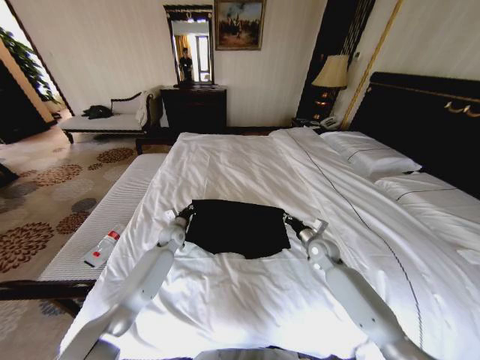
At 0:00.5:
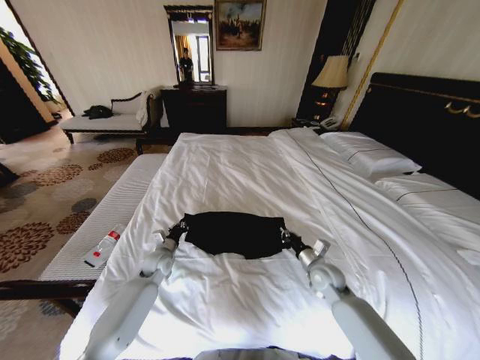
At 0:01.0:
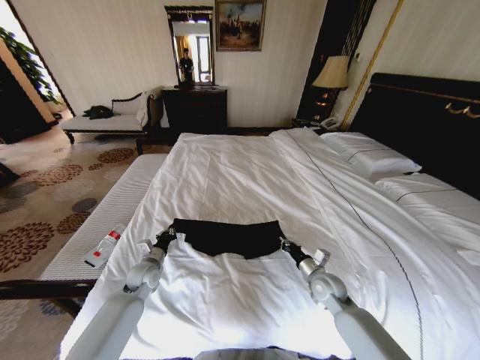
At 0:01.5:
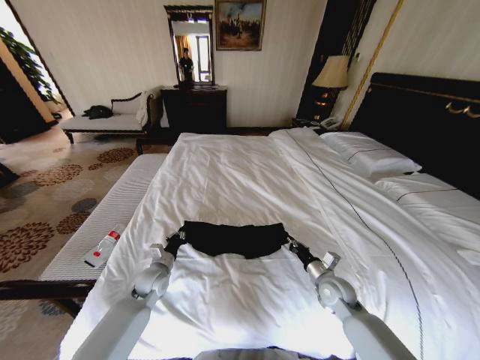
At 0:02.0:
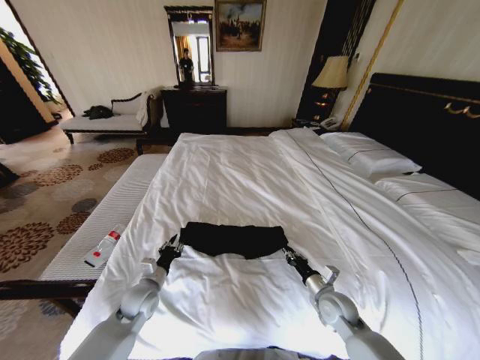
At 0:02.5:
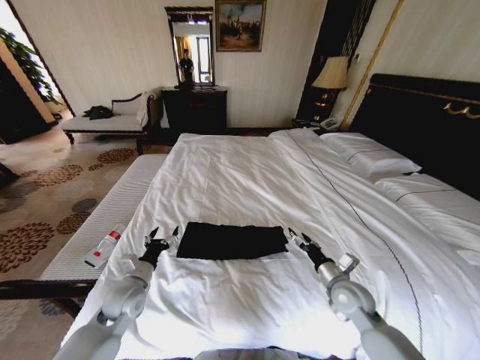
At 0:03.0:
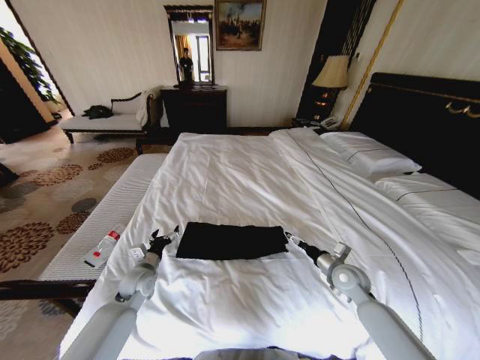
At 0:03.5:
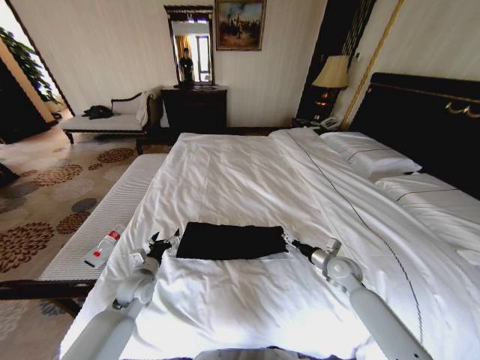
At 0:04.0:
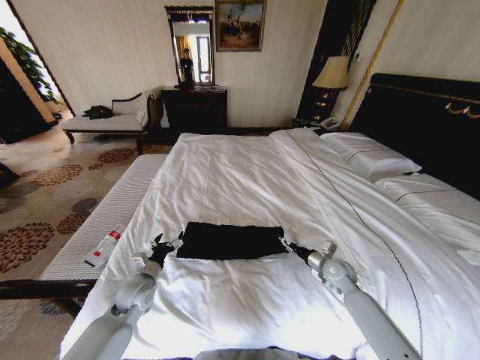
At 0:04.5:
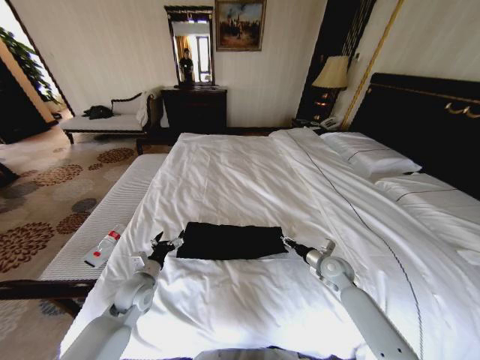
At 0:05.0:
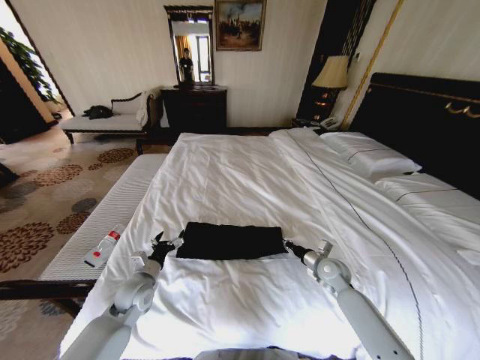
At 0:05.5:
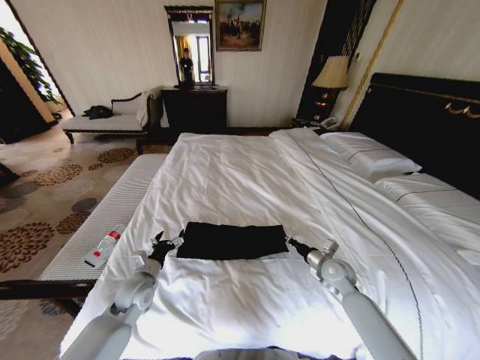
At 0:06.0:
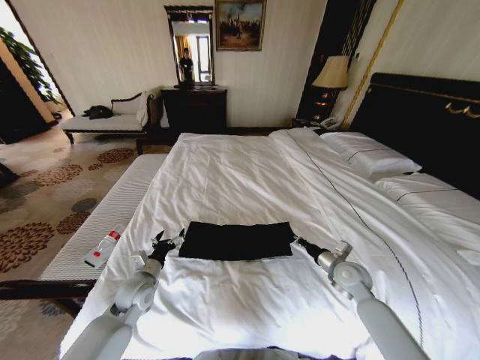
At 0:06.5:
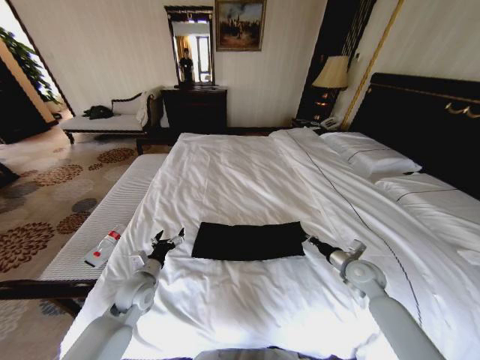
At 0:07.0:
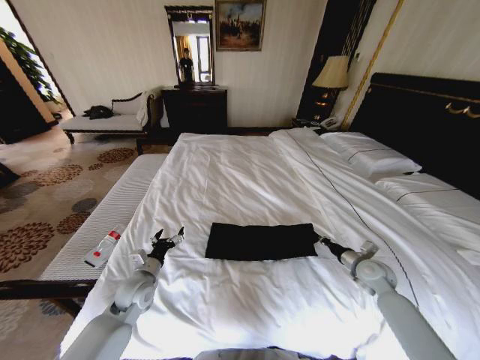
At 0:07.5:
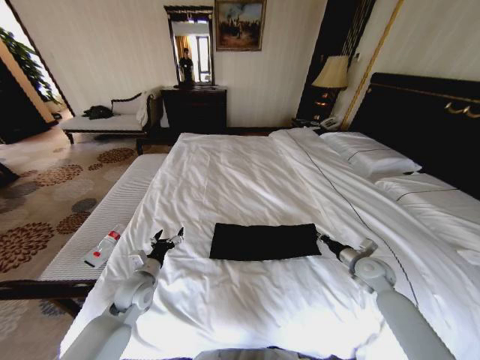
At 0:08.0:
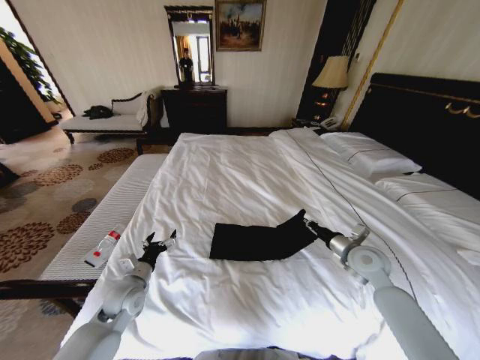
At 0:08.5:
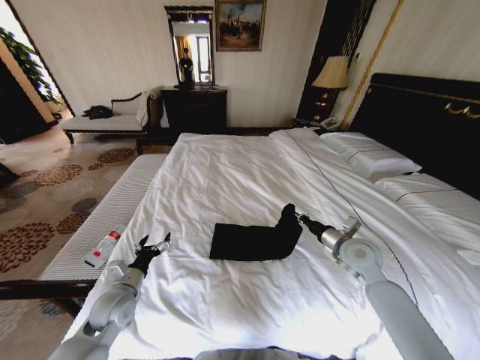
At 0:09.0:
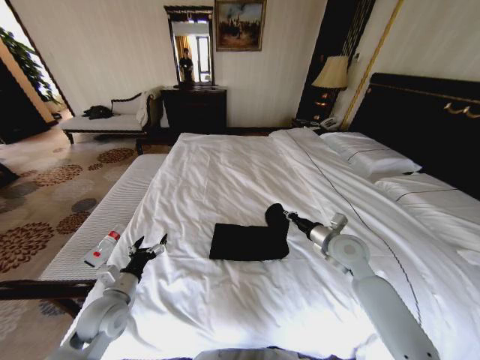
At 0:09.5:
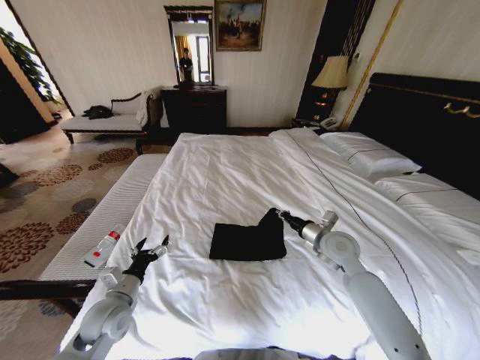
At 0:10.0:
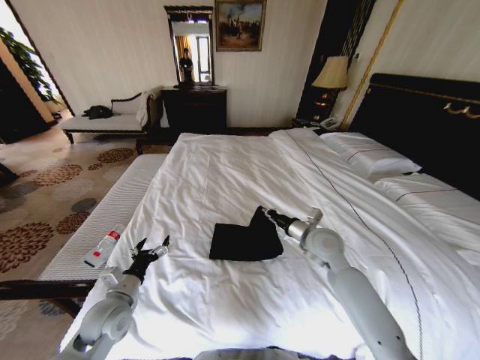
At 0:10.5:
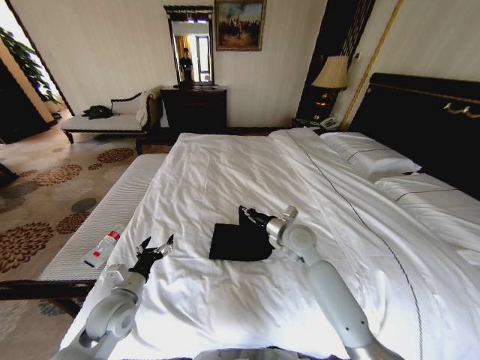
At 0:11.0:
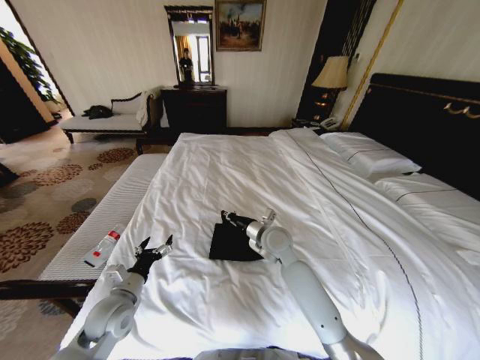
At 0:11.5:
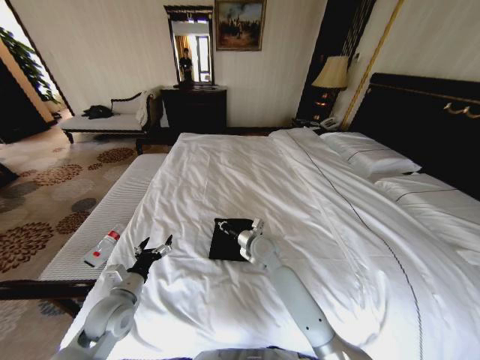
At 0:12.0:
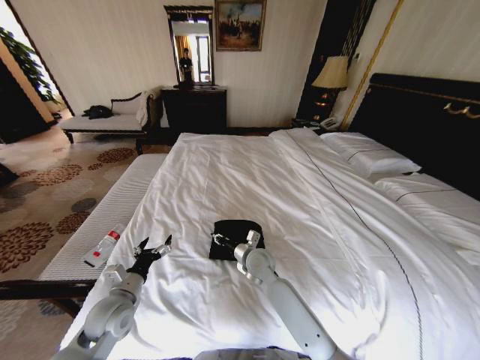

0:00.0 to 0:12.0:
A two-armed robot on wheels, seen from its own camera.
Task of the whole recording: Fold the clothes on the bed.
0:00.0 to 0:02.0: Both grippers move backward, approximately 20 cm.
0:02.0 to 0:04.0: The left gripper opens its fingers, while the right gripper is displaced forward by some 10 cm, and opens its fingers.
0:04.0 to 0:06.0: The right gripper closes its fingers.
0:06.0 to 0:08.0: The right gripper goes about 5 cm upward, and reaches approximately 10 cm to the right, then returns.
0:08.0 to 0:10.0: The right gripper is displaced to the left by some 15 cm. Meanwhile the left gripper is displaced backward by roughly 5 cm.
0:10.0 to 0:12.0: The right gripper is displaced to the left and downward by about 20 cm.

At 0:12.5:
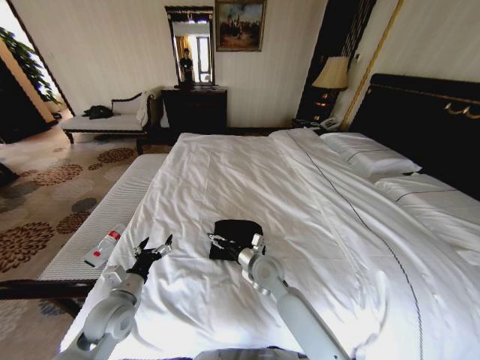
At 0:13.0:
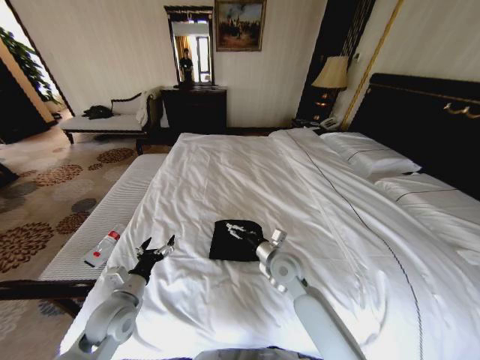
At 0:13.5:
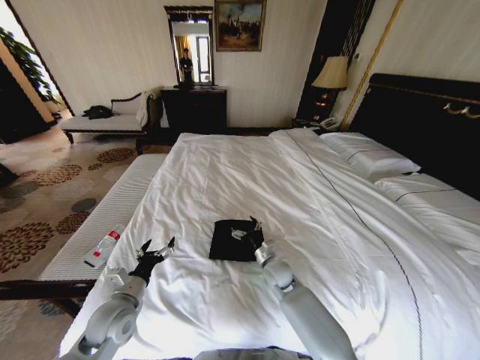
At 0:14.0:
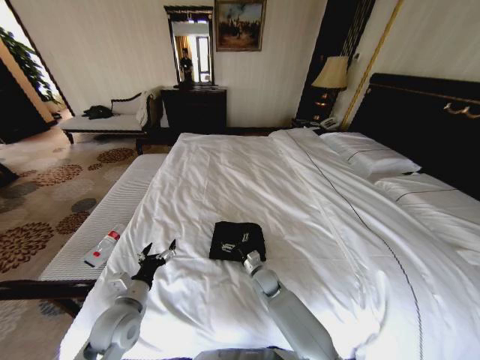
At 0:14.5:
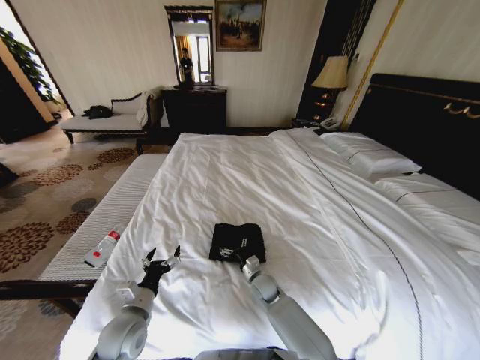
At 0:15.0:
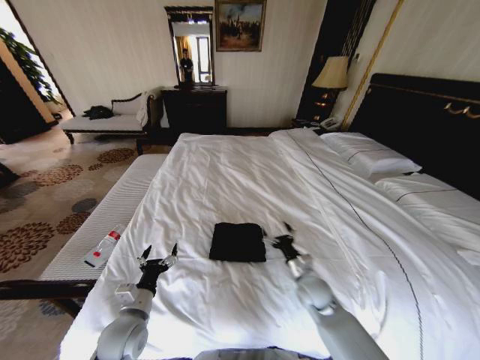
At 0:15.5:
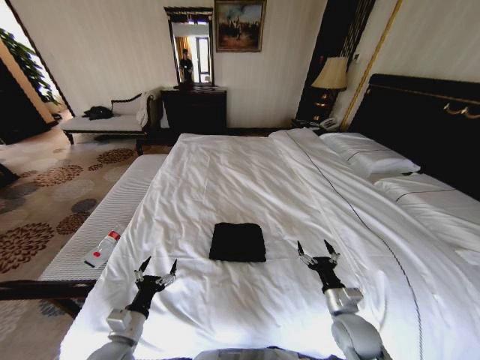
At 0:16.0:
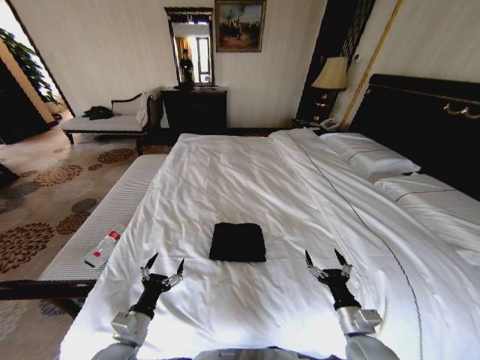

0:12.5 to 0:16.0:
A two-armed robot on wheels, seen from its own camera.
Task of the whole recording: Fold the clothes on the bed.
0:12.5 to 0:14.5: The left gripper ends up some 5 cm from where it was; the right gripper is displaced downward by approximately 15 cm.
0:14.5 to 0:16.0: The left gripper goes approximately 5 cm backward. The right gripper is displaced to the right, backward and upward by some 30 cm.
